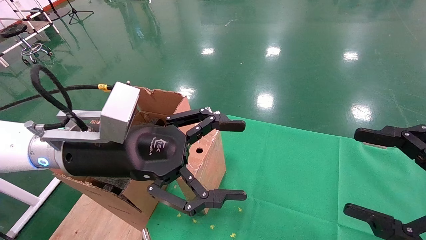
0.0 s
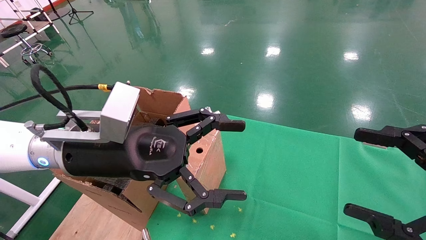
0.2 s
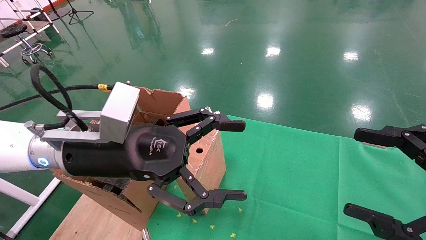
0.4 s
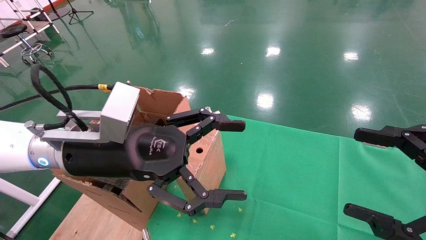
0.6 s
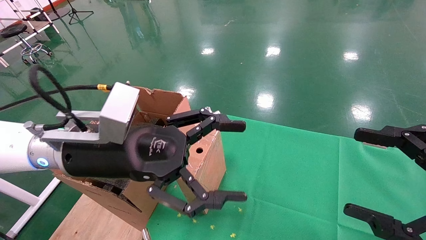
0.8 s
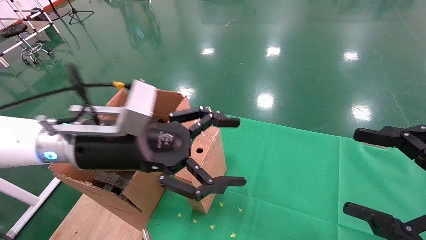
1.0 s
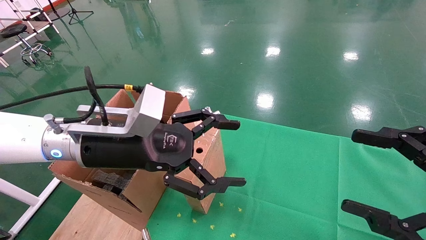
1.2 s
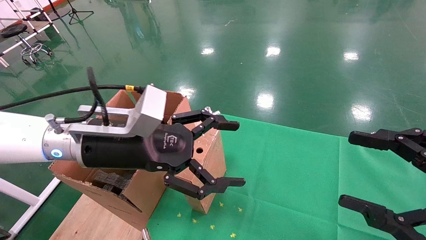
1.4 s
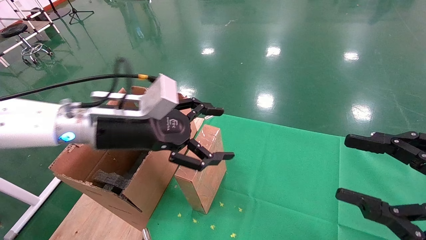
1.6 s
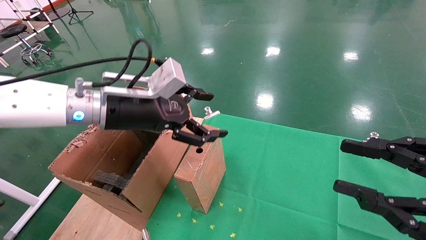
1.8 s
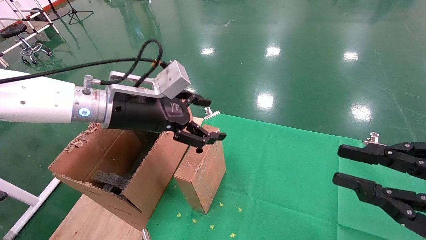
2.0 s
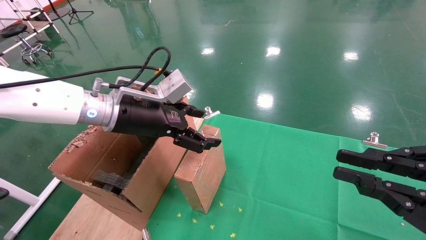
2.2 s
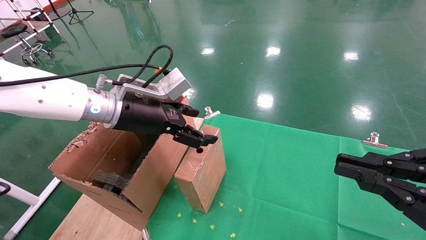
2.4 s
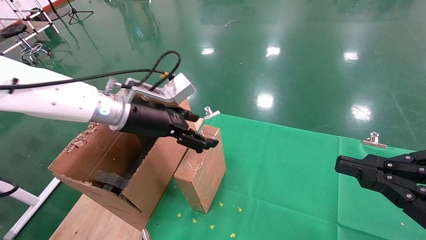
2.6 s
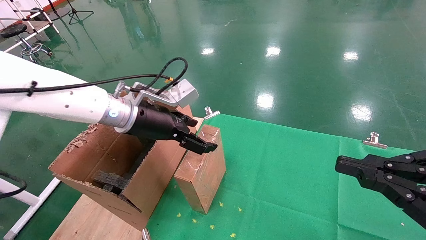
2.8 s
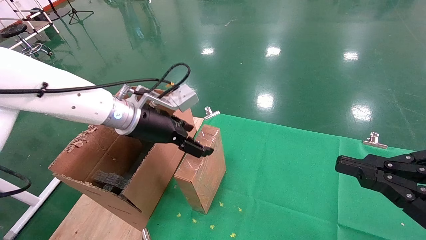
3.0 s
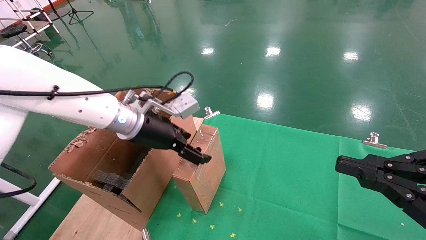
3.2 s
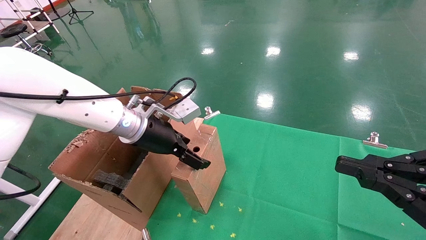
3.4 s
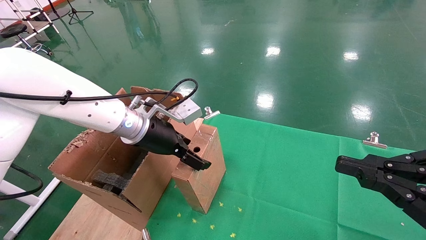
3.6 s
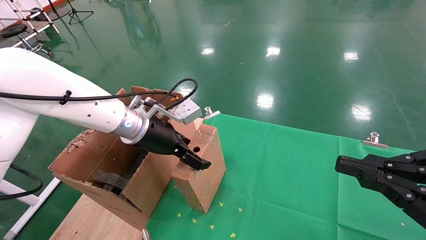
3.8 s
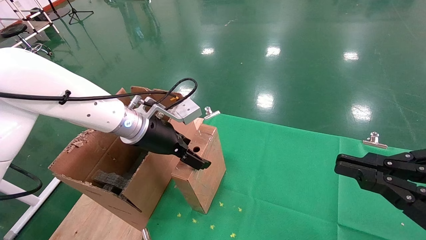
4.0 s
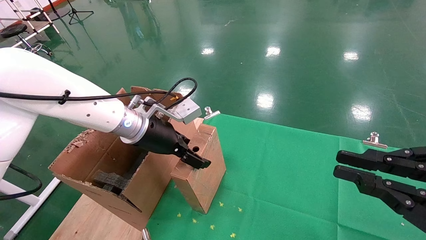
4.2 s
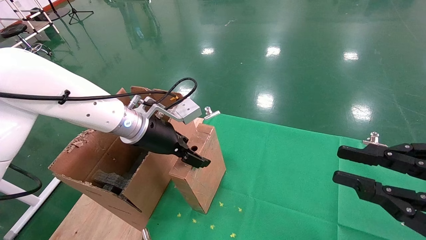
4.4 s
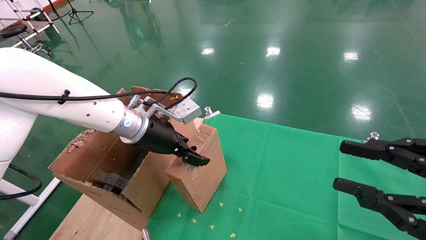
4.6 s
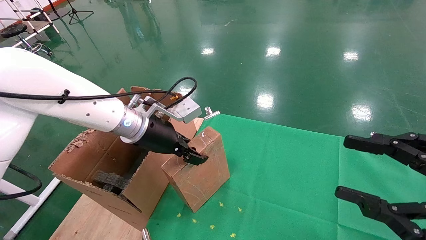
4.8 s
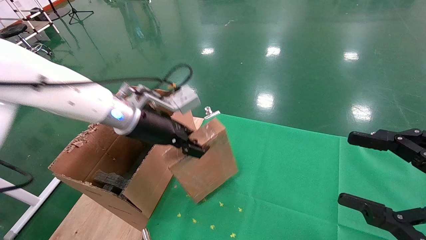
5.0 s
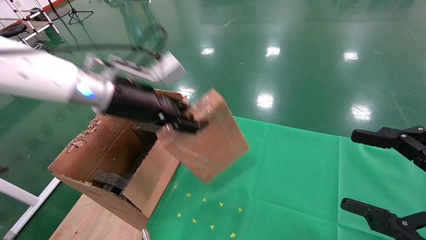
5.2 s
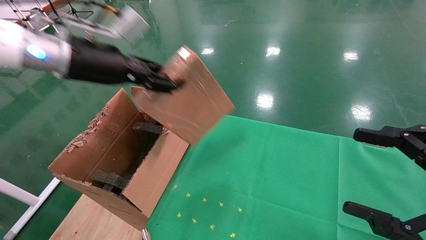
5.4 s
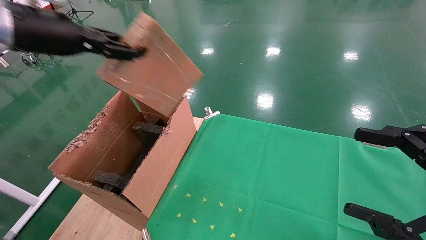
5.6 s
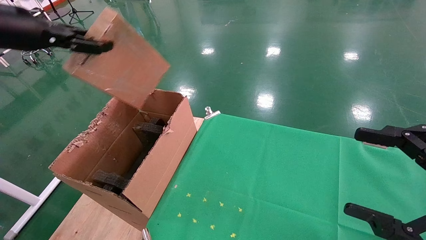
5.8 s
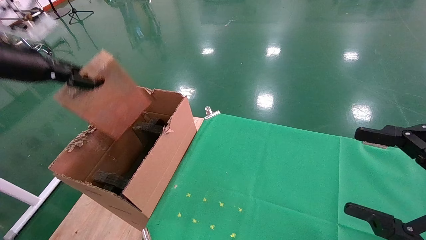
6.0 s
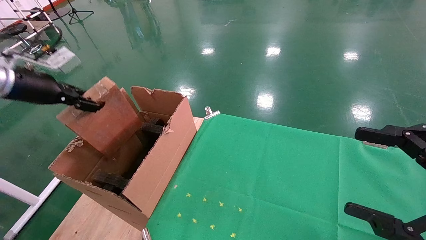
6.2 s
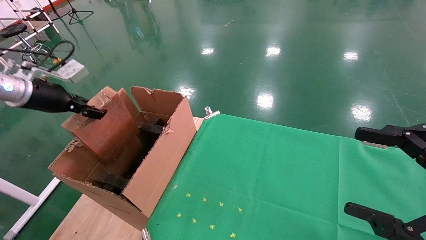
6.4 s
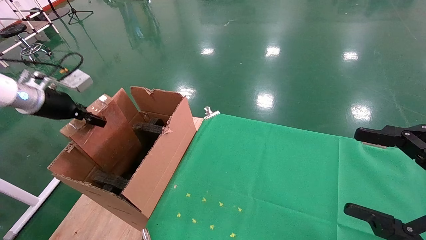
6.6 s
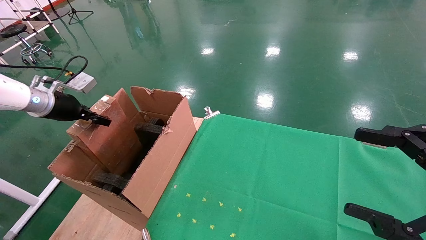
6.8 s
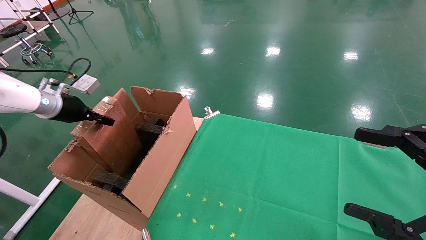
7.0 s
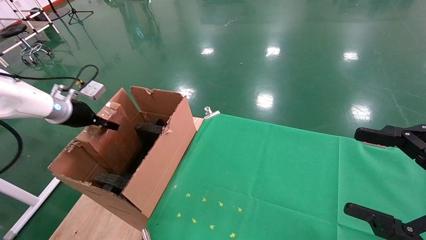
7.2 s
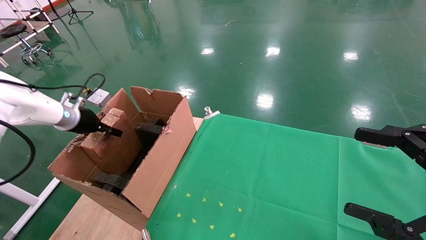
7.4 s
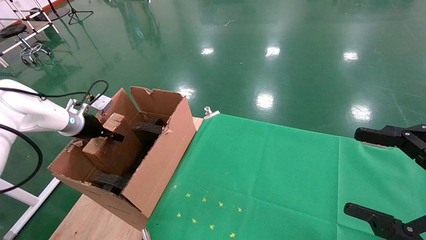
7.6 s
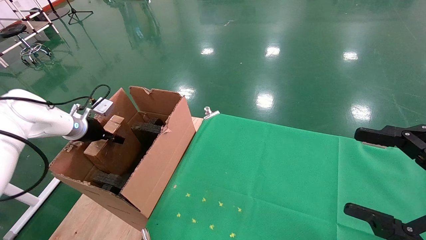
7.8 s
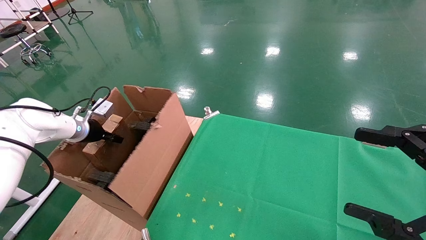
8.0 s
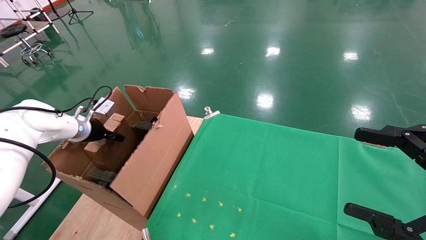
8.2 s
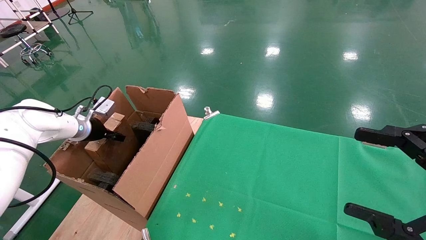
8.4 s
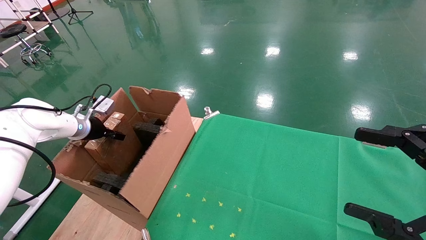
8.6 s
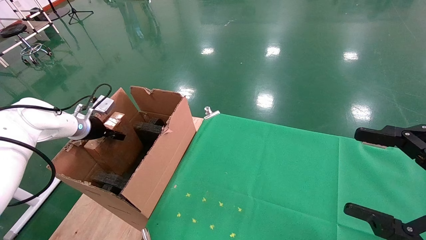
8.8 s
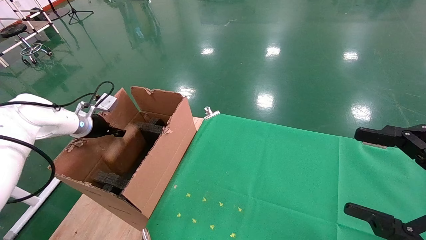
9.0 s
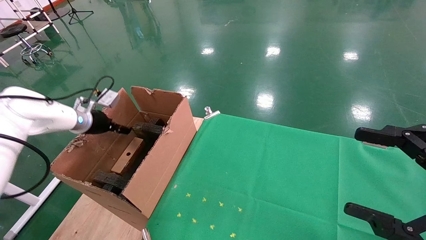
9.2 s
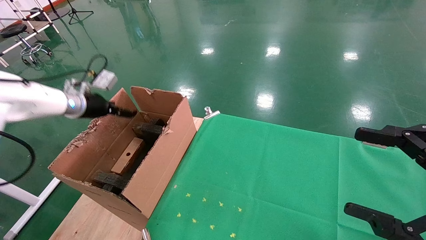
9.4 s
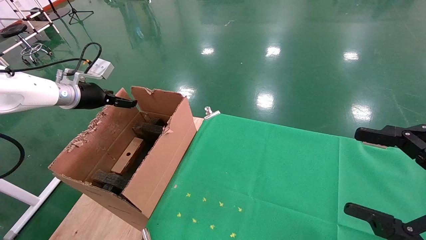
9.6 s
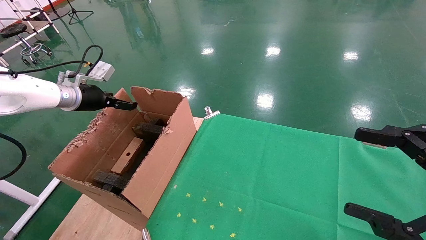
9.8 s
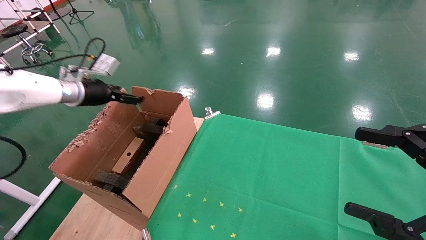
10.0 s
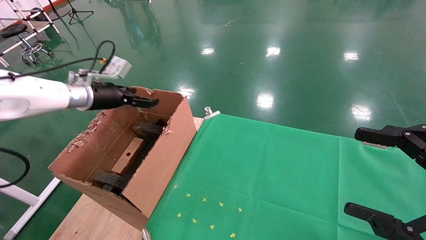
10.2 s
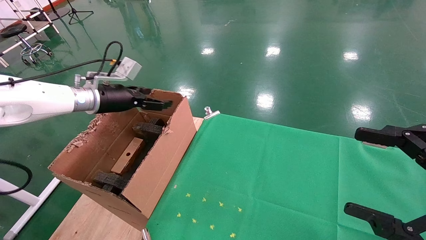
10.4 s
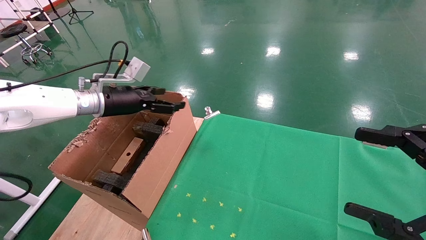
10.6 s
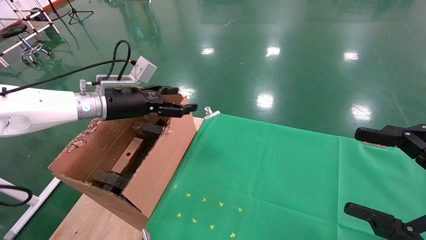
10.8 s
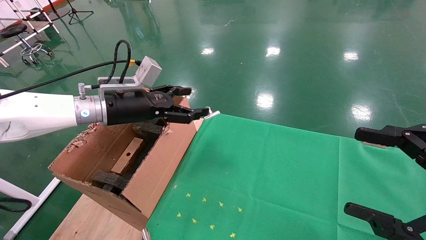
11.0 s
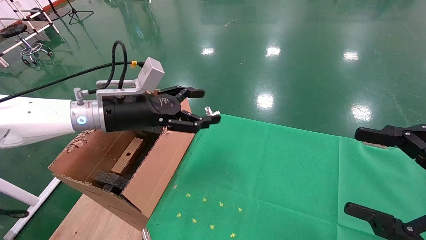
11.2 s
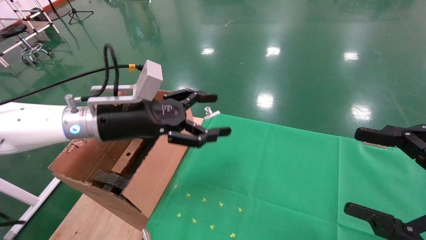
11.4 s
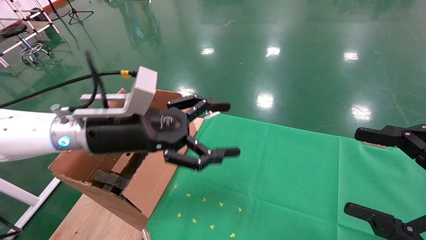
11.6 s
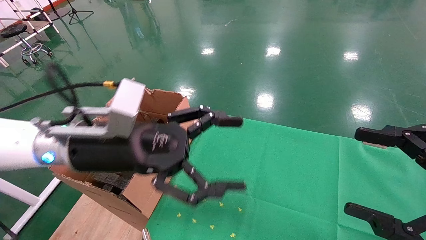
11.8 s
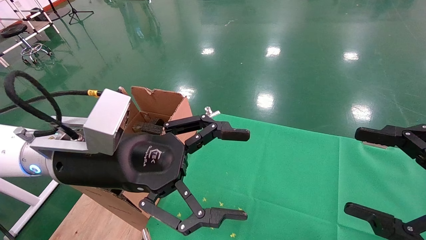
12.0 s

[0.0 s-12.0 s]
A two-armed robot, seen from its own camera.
Task of the whole recording: using a robotic arm to pick up a cardboard box and palace it the carton.
Step, 1.2 to 4.8 s: Pick up the mouse and the power cord paper box.
Step, 5.0 to 9.0 s: Place the mouse and the power cord paper box into the container.
0.0 to 1.6 s: The left gripper shifts approximately 5 cm forward.
1.6 to 3.0 s: The left gripper moves forward, about 5 cm. Meanwhile the right gripper closes.
3.0 to 4.4 s: The grippers stay close to where they were, moving slightly.
4.4 to 6.0 s: The left gripper travels to the left and upward by about 30 cm, and closes; the right gripper opens.
6.0 to 7.6 s: The left gripper travels downward and forward by about 20 cm.
7.6 to 9.0 s: The left gripper opens.
9.0 to 10.4 s: The left gripper goes roughly 10 cm to the right and upward, and opens up.
10.4 to 12.0 s: The left gripper goes about 25 cm backward and to the right.

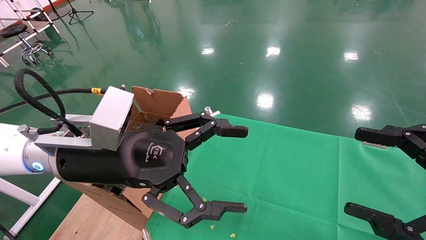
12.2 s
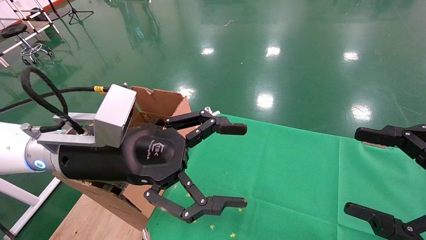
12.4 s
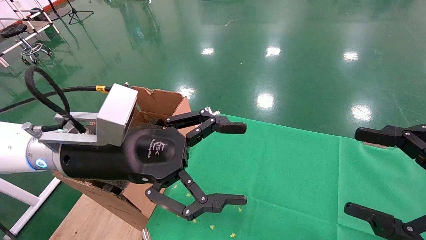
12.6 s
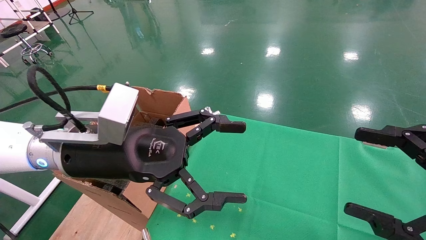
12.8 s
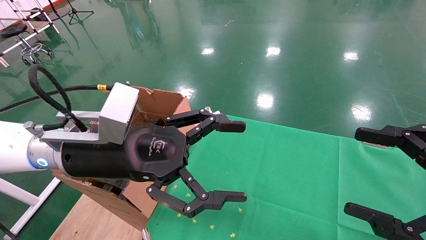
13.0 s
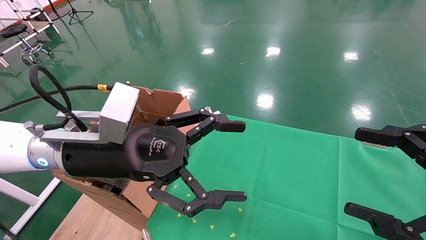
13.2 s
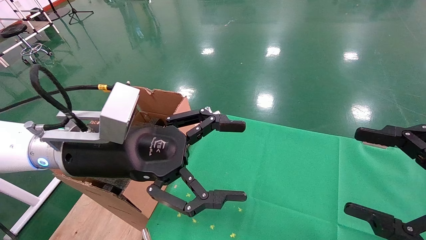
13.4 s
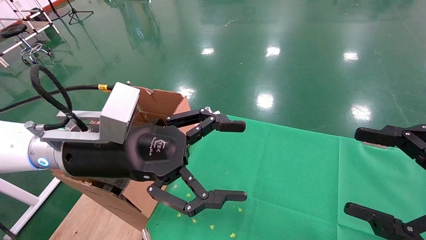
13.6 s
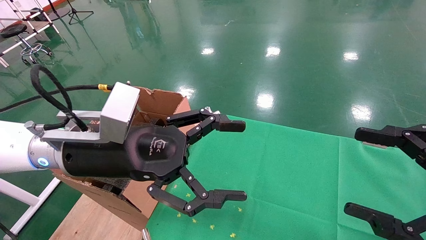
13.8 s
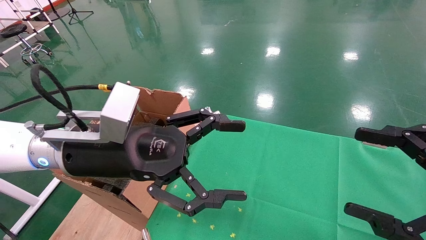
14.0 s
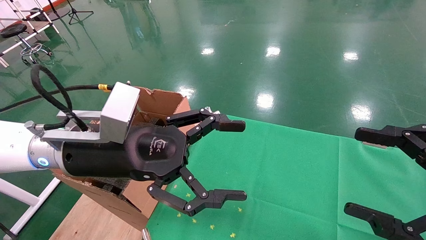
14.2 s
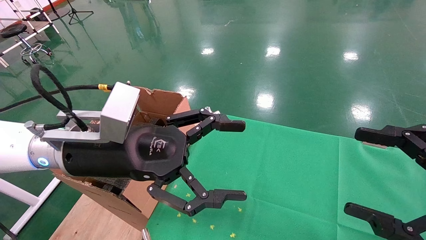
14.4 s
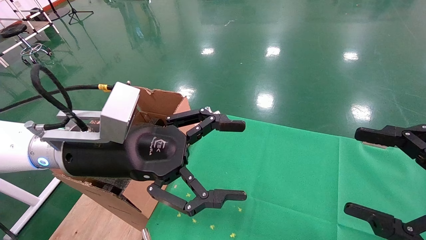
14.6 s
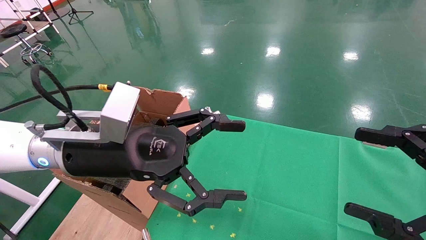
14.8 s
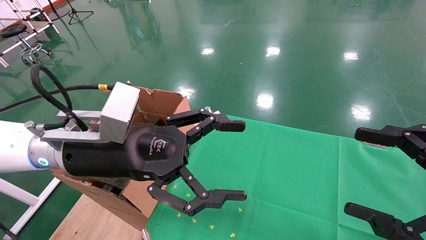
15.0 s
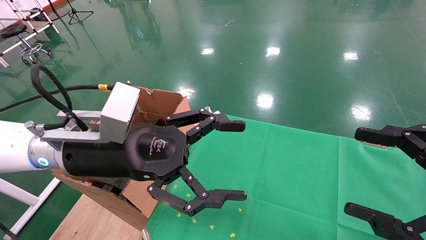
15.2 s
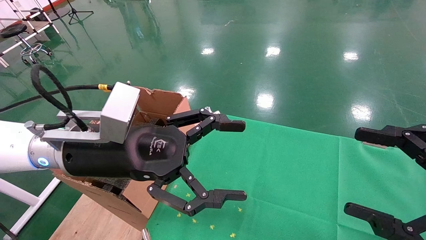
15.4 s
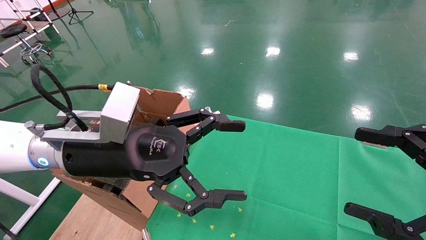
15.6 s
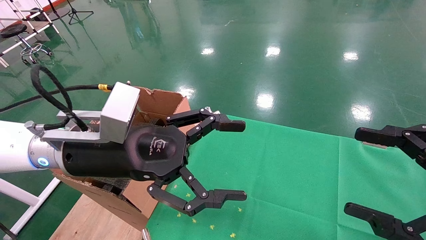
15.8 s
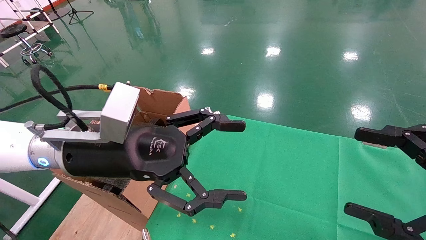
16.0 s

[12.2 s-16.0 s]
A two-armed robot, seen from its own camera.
Task of the whole recording: using a robotic arm to pick up a cardboard box and palace it the carton.
12.2 to 16.0 s: The two grippers keep their place.
